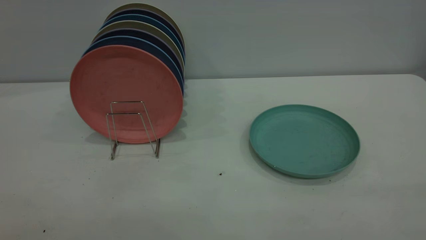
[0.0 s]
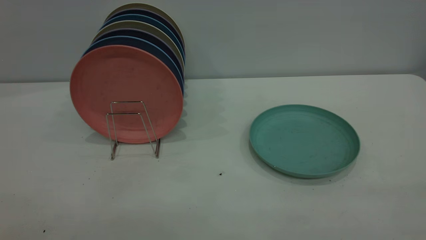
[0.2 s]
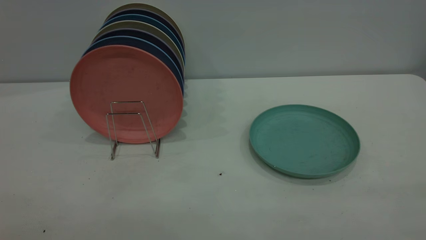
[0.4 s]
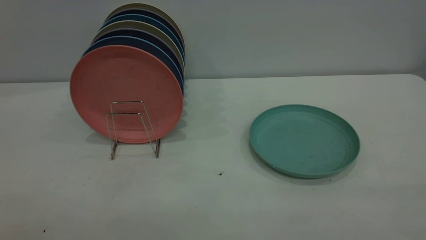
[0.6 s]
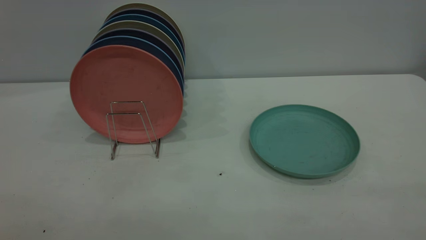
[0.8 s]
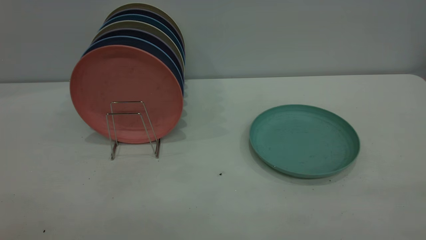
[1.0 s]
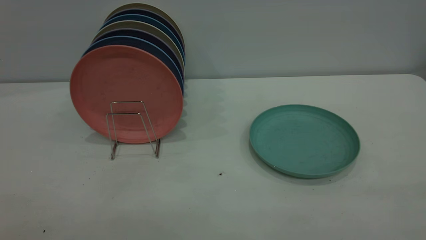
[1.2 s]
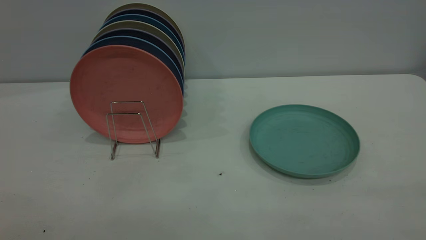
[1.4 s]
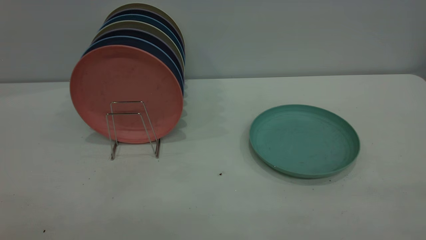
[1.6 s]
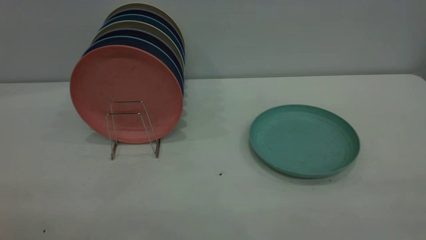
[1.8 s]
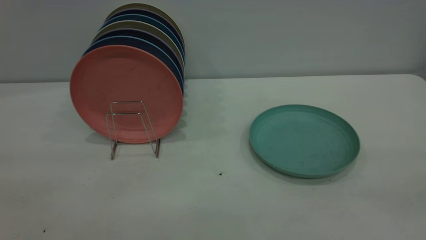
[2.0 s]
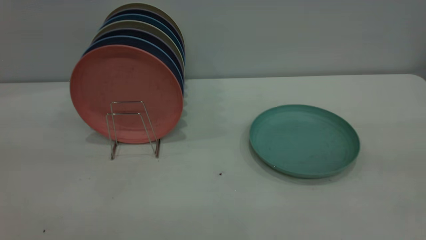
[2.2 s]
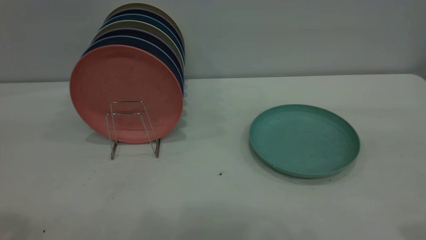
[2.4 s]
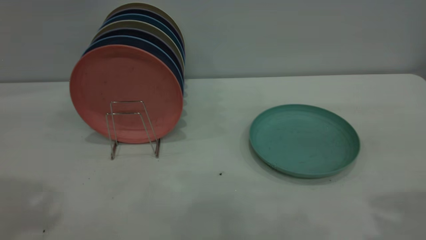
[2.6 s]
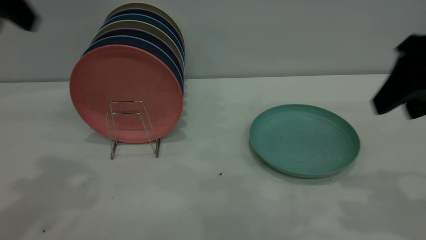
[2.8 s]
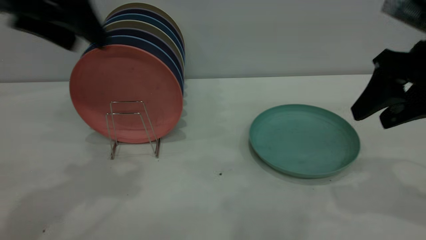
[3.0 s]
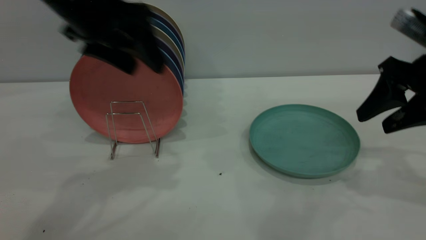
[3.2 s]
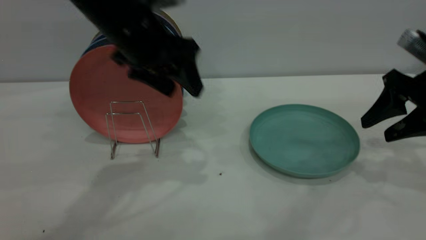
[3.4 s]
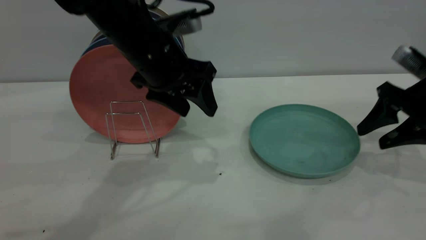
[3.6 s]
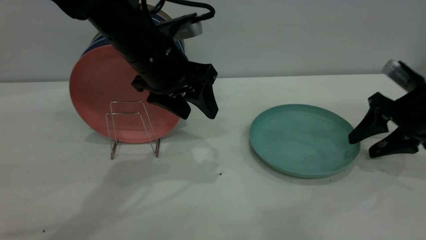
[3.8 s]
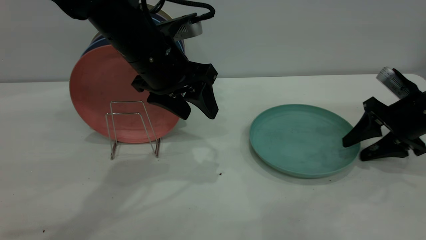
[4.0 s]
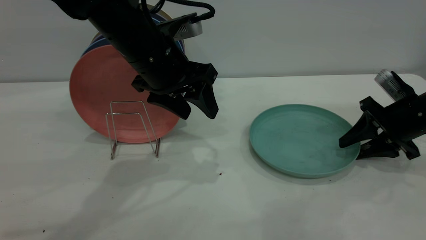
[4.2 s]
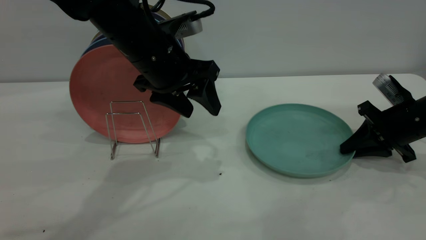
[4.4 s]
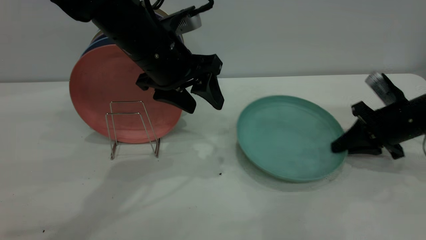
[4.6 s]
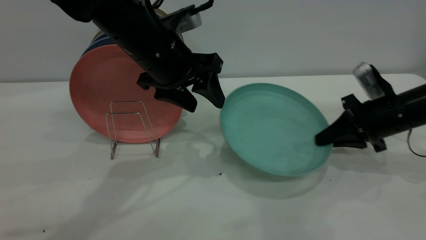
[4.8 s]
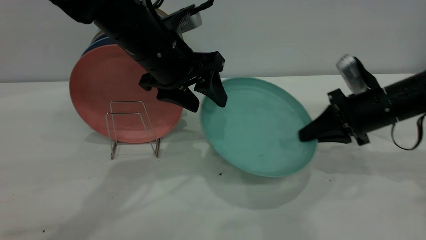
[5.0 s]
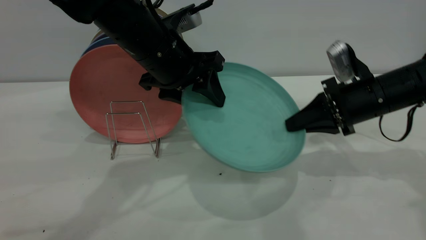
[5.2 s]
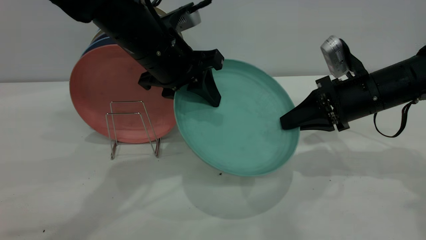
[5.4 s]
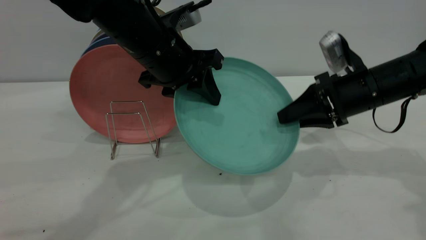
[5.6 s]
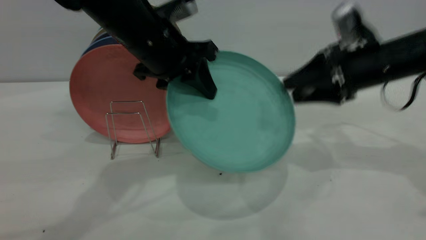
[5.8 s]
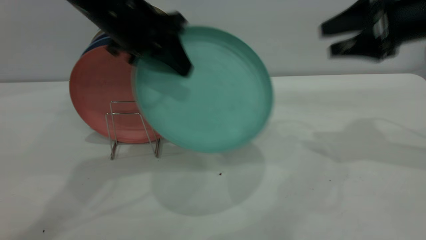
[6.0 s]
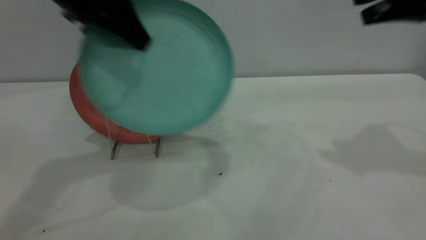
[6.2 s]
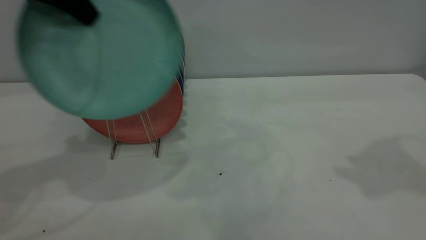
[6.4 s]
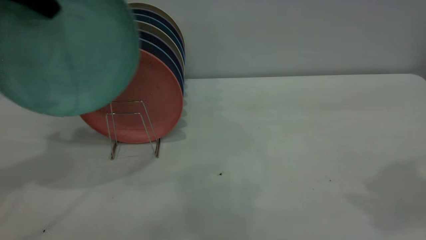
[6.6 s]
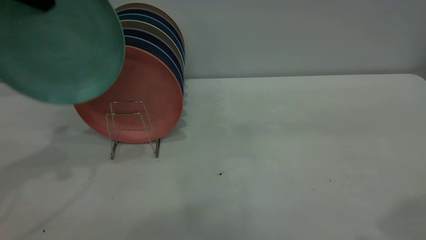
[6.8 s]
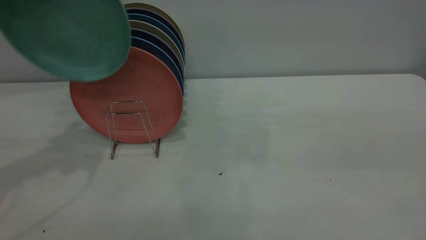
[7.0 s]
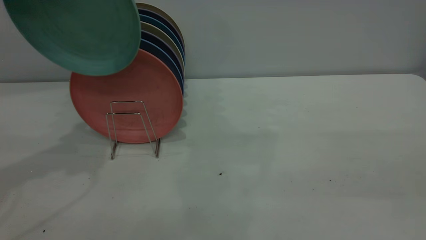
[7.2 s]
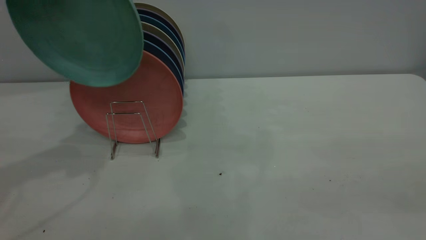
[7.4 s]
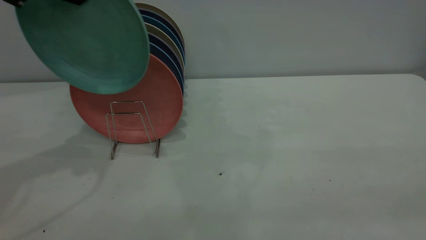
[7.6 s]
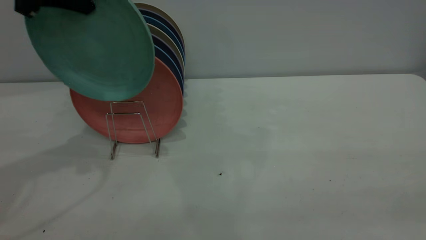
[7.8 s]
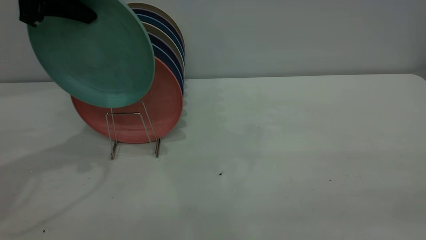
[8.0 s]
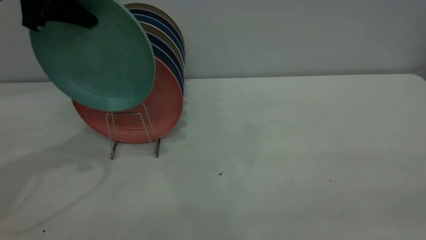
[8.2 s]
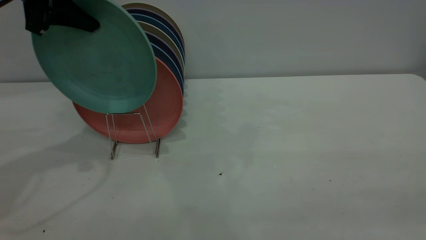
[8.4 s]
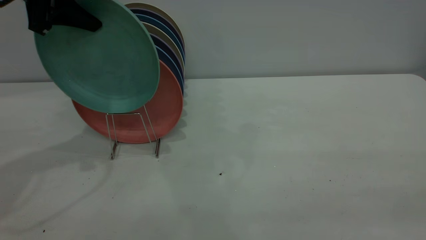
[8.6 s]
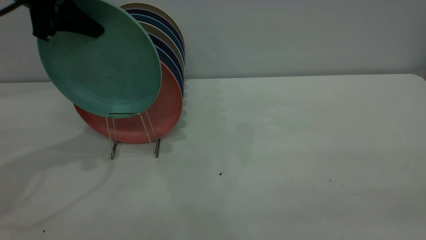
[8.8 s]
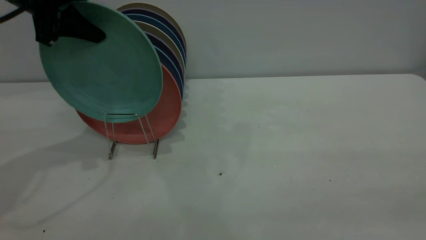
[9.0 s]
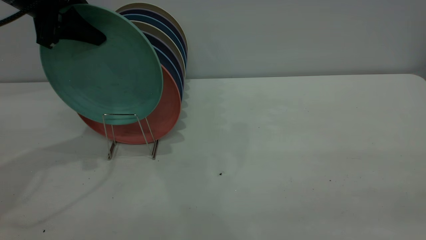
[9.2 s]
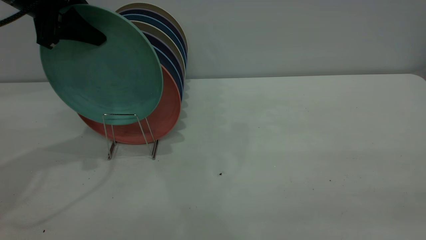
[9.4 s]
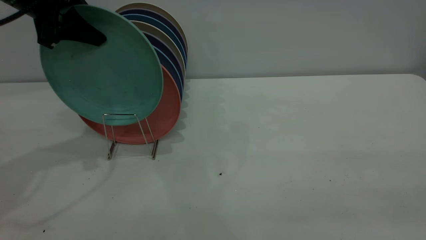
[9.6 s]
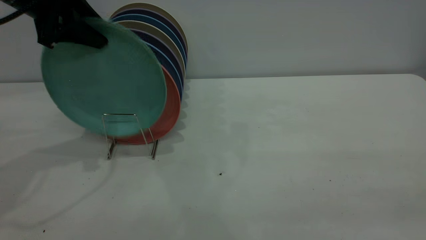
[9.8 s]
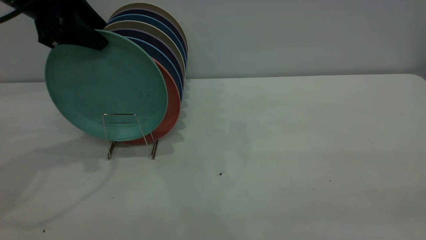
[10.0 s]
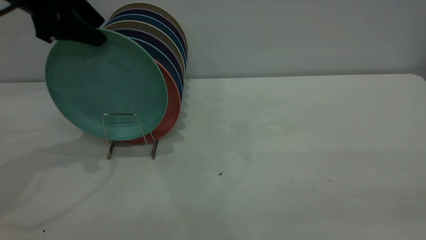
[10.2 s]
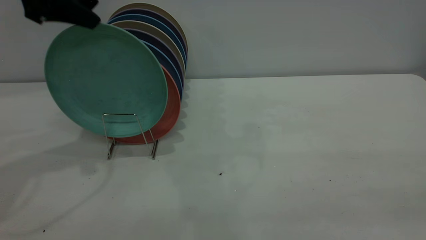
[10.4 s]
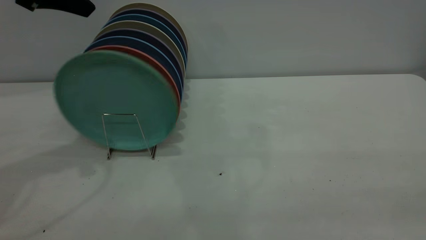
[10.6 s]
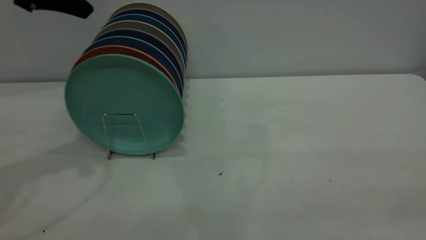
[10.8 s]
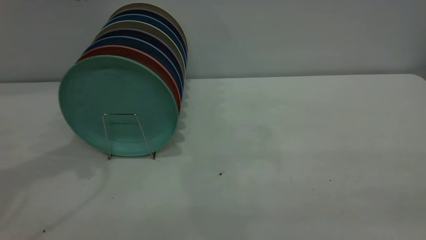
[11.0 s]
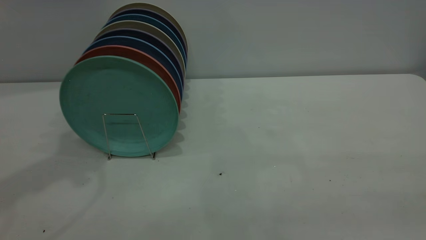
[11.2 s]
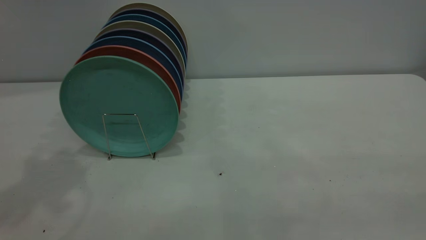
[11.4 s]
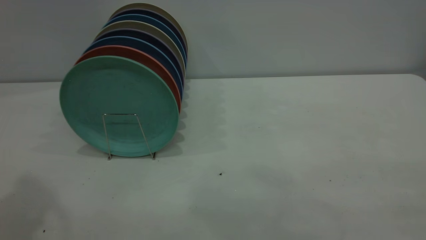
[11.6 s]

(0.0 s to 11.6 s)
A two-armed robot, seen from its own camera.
Task of the whole recording: the right gripper grasp the green plate, the right gripper pass the green plate to the left gripper, and the left gripper place the green plate on the plate rack.
Step, 0.0 s - 4.6 s: Pick up the plate with the right gripper.
Step, 4.8 s - 5.8 s: Pass the plate from the right gripper to the left gripper.
Step, 6.0 s - 10.8 s: Place the plate on the shelf.
0.0 s - 1.4 s: Both grippers stay put.
1.4 s - 2.8 s: The grippers both shift forward by some 30 cm.
2.8 s - 4.4 s: The left gripper goes roughly 25 cm to the right, downward and forward, while the right gripper is displaced downward and forward by roughly 25 cm, and closes.
4.4 s - 5.8 s: The right gripper shifts some 15 cm upward and to the left, and opens its fingers, while the left gripper closes its fingers.
5.8 s - 7.2 s: The left gripper goes some 20 cm to the left and upward. Meanwhile the right gripper travels backward and upward by roughly 35 cm.
7.2 s - 8.8 s: The left gripper is displaced downward by roughly 5 cm.
8.8 s - 10.2 s: The left gripper opens.
10.2 s - 11.6 s: The left gripper travels upward and backward by approximately 25 cm.

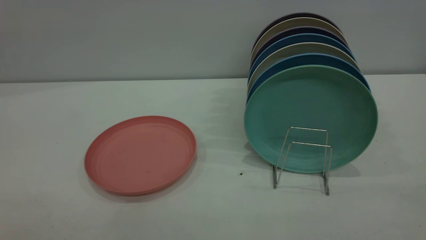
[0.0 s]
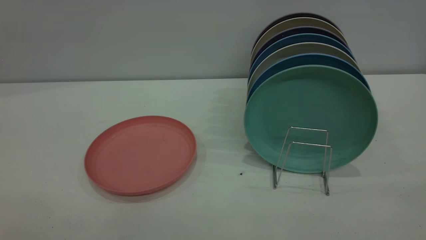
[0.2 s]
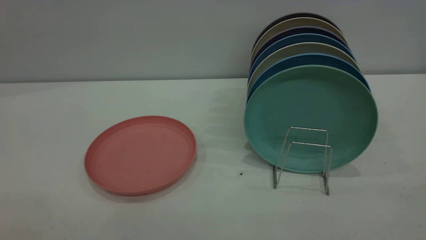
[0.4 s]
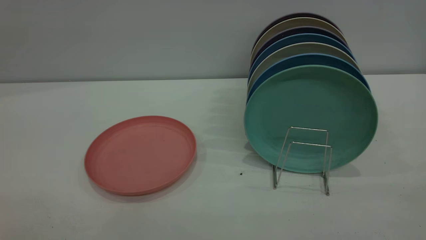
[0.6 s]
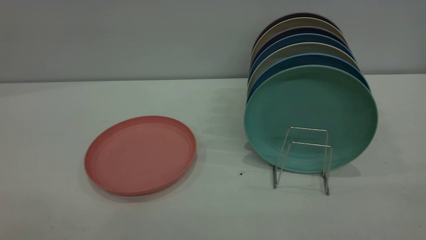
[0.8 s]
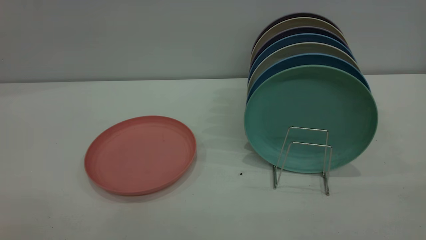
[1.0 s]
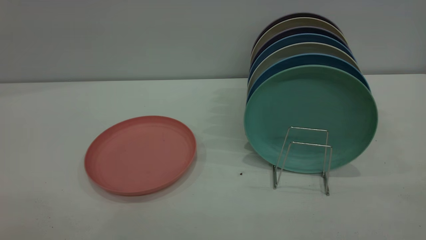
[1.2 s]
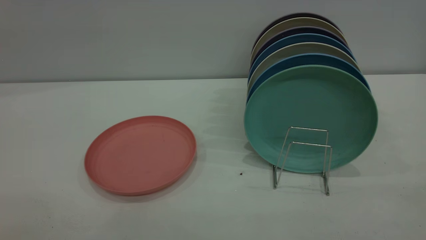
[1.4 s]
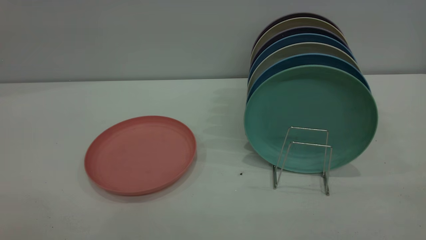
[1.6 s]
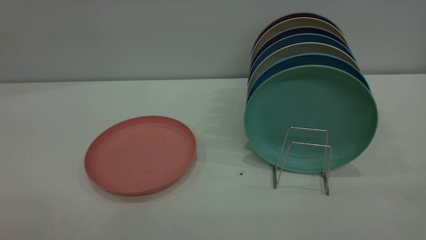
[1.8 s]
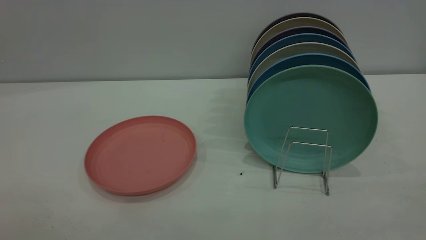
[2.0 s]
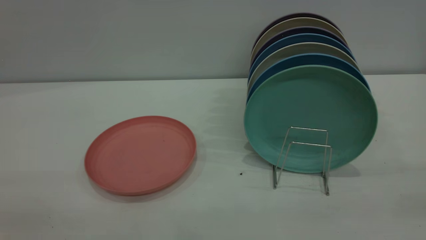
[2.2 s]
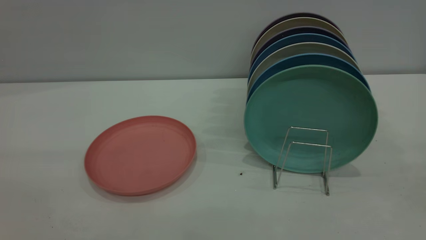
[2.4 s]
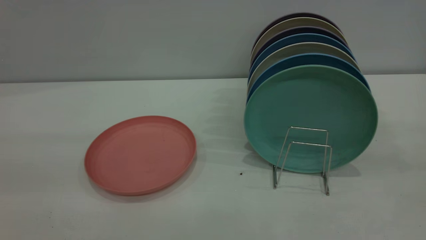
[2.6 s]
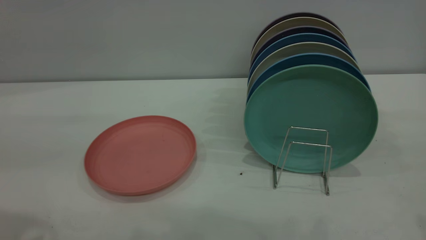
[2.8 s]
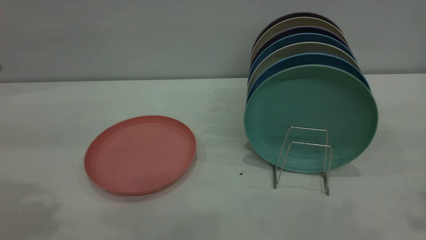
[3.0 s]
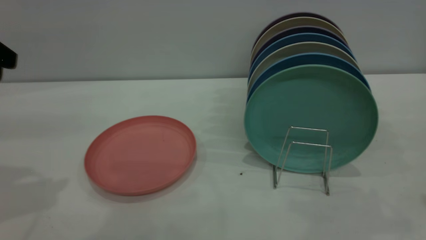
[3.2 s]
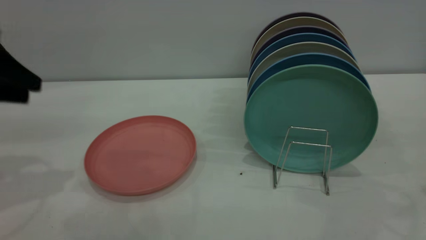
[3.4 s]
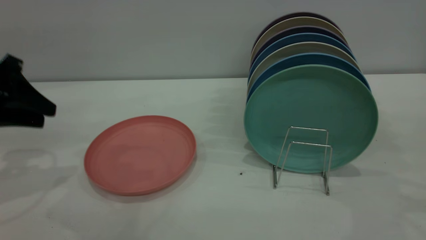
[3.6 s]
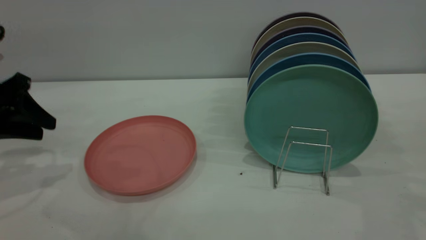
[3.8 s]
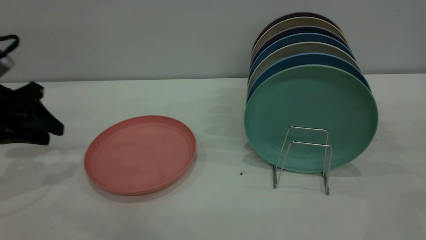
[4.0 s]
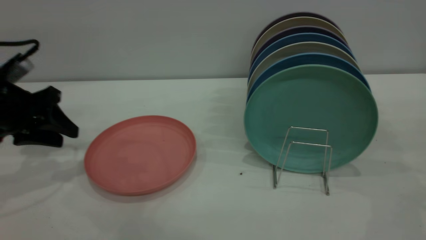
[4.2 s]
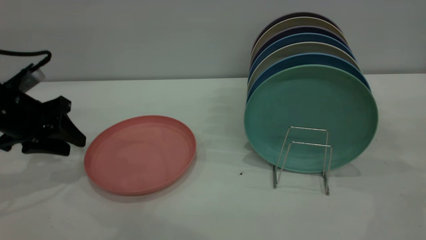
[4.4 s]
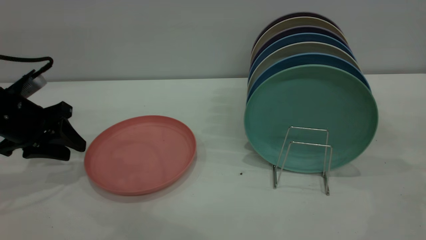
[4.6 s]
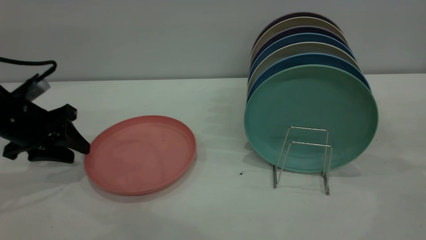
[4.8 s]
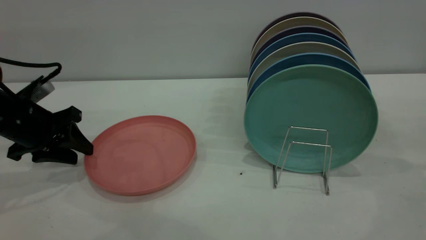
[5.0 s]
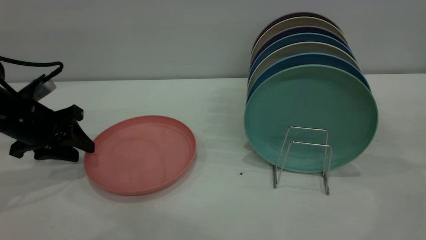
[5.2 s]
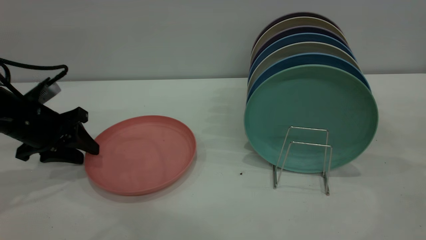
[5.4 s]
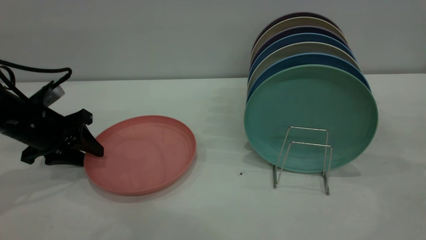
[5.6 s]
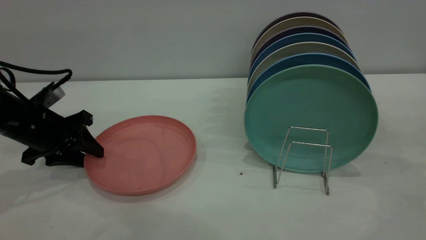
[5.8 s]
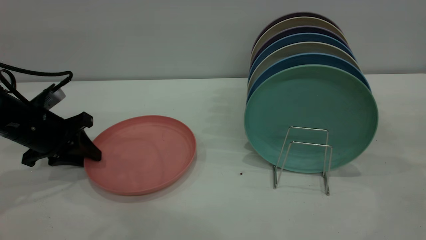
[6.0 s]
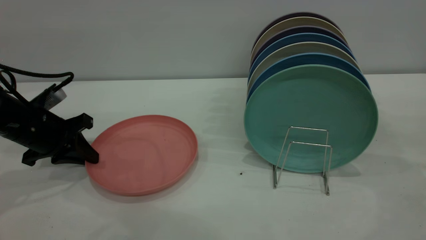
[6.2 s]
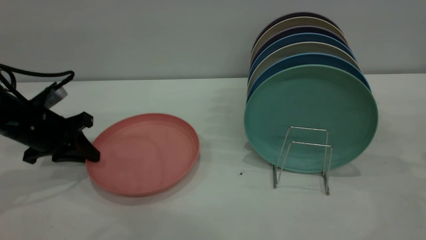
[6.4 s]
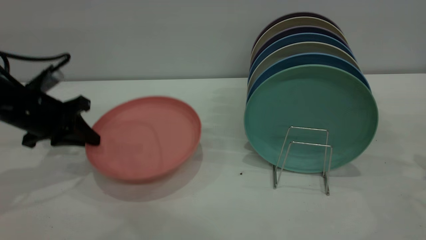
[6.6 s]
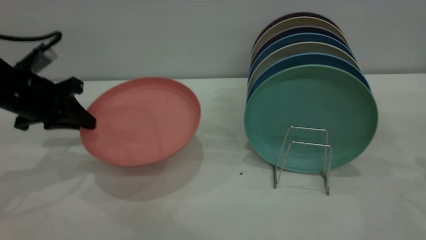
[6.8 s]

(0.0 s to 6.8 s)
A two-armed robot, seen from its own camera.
Task of the whole recording: put the plate on the plate rack.
Step, 0.0 s - 6.8 s: Pick up the plate with the left gripper.
0.0 s - 1.4 s: Neither gripper changes place.
2.8 s - 4.0 s: The left gripper travels downward and forward by roughly 25 cm.
4.0 s - 5.4 s: The left gripper shifts some 5 cm downward.
5.4 s - 6.8 s: The left gripper moves upward, approximately 5 cm, and closes up.
